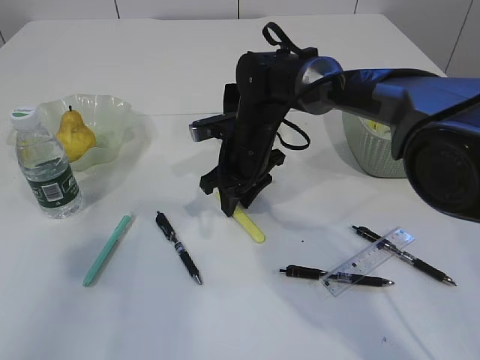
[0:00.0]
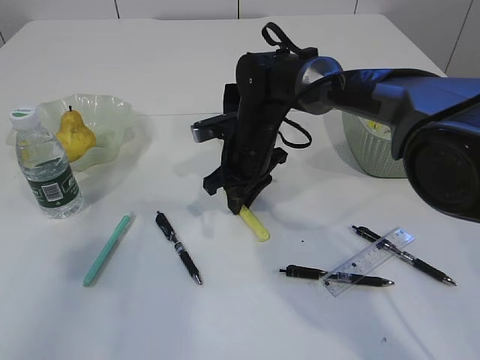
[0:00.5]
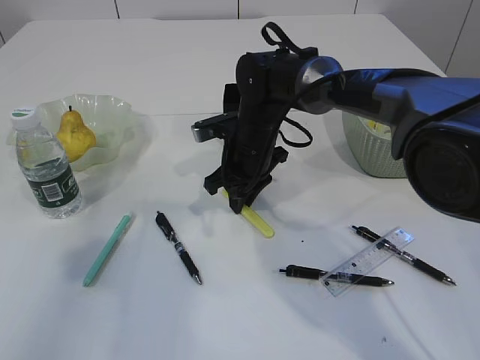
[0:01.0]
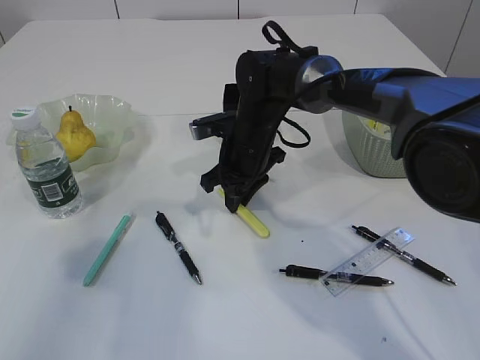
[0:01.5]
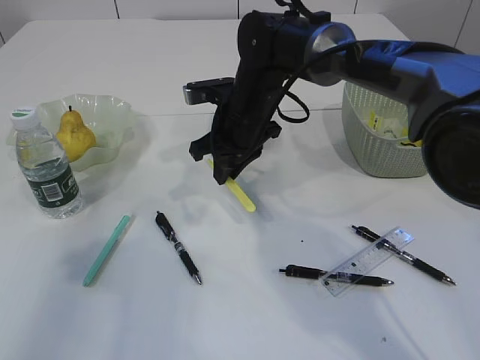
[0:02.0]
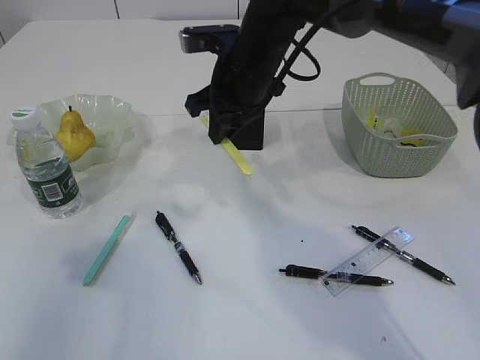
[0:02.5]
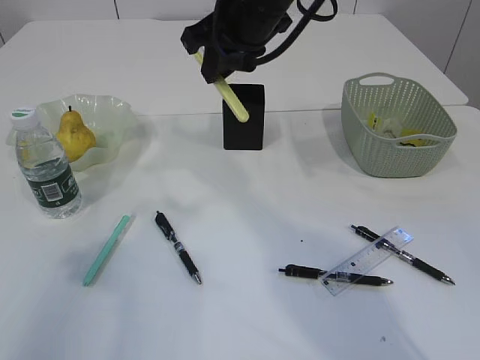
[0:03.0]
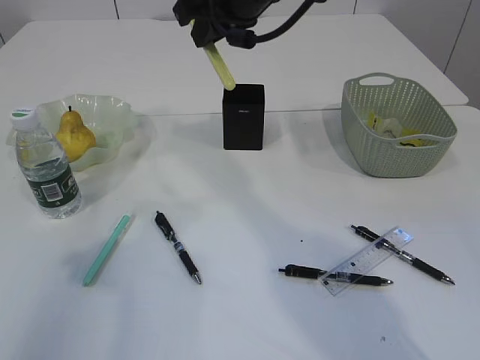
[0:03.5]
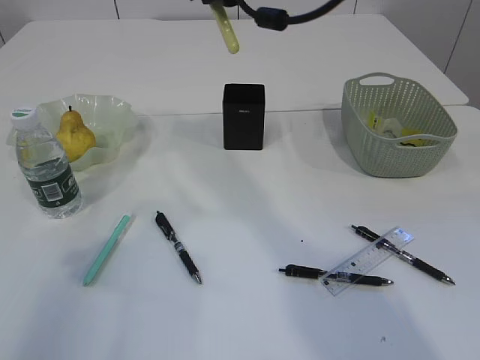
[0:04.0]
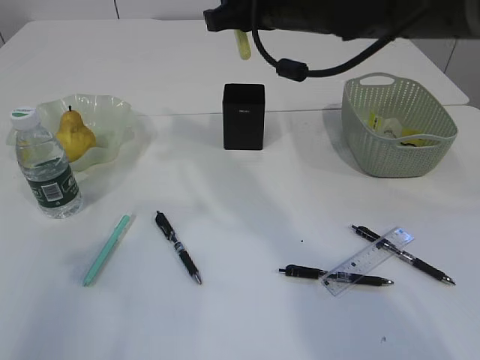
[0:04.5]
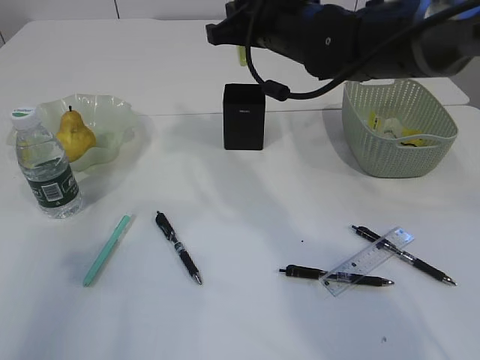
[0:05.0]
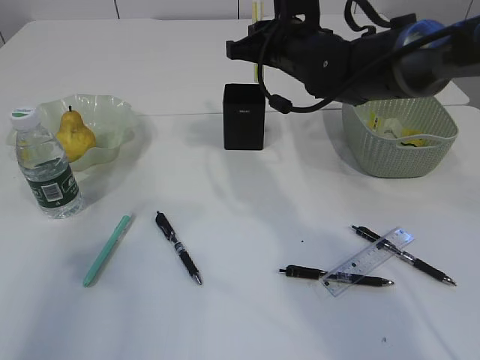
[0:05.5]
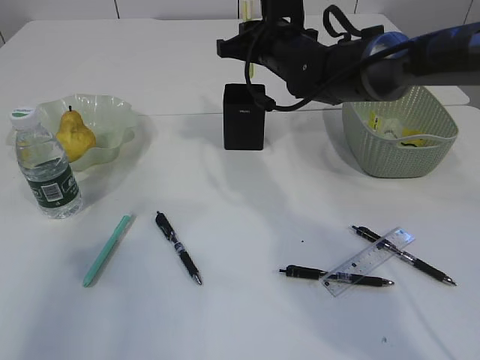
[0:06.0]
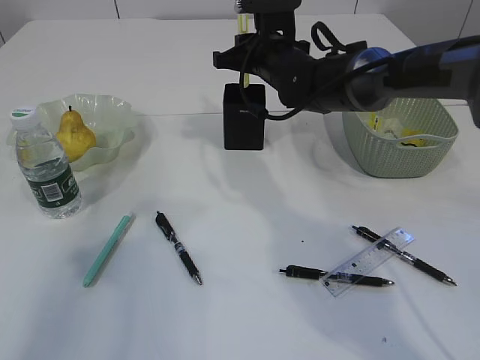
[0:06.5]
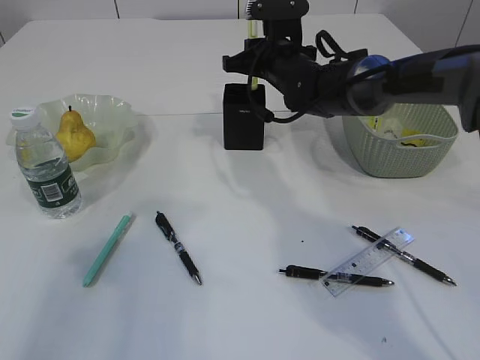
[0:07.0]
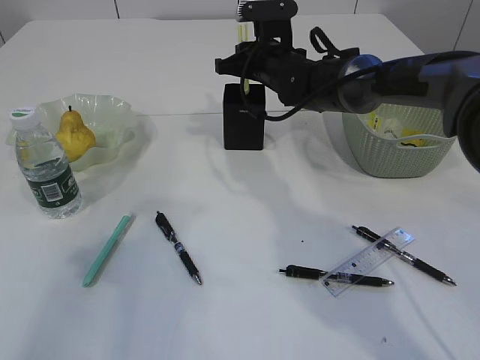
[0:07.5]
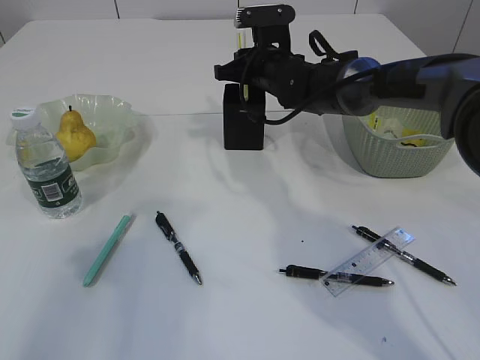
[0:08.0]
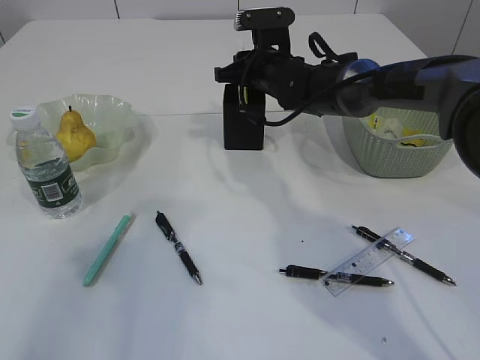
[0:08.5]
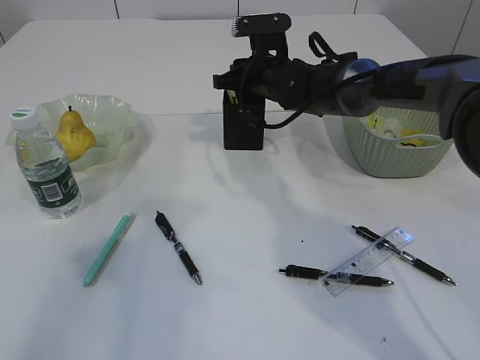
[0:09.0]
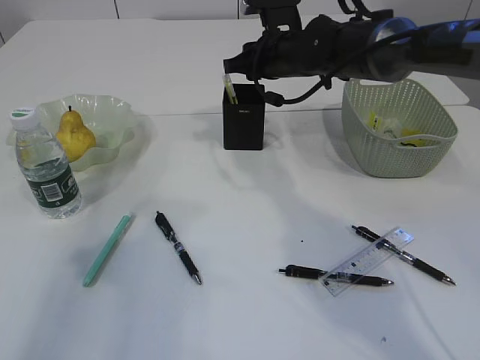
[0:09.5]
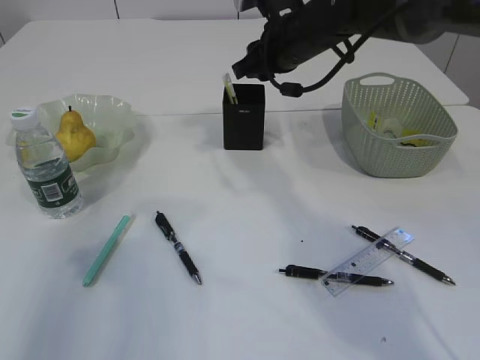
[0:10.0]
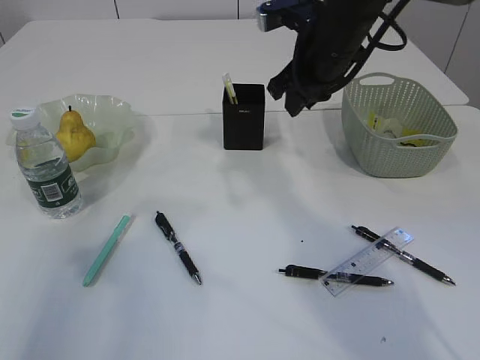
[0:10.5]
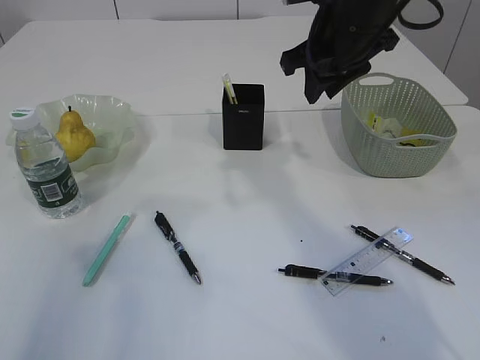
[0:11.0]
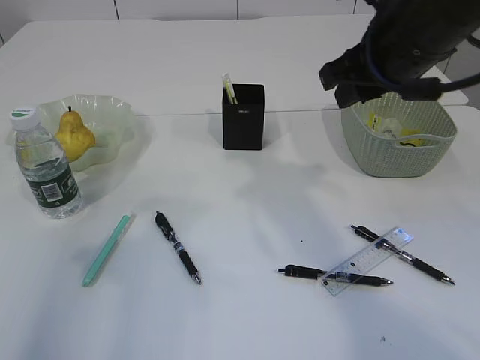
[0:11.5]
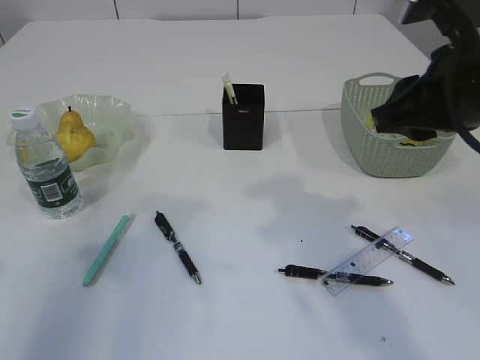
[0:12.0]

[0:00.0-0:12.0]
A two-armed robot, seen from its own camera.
Step, 0:02.0 to 0:09.0: place the yellow knife into the pen holder.
0:00.0 to 0:02.0: The right gripper closes its fingers.
0:02.0 to 0:04.0: The right gripper moves upward, roughly 20 cm.
0:04.0 to 0:06.0: The right gripper shifts approximately 15 cm downward and forward.
0:06.0 to 0:08.0: The right gripper changes place by about 5 cm.
0:08.0 to 0:10.0: The right gripper shifts roughly 5 cm upward.
0:10.0 to 0:12.0: The right gripper moves backward and to the right, roughly 25 cm.

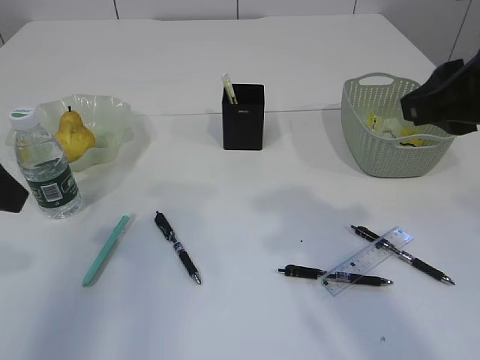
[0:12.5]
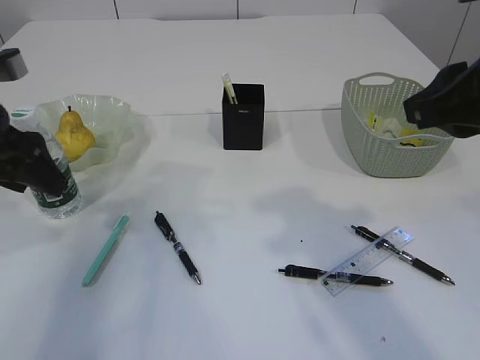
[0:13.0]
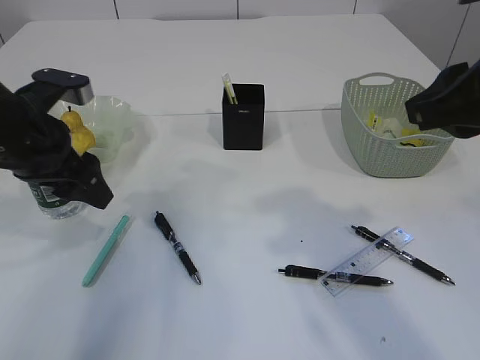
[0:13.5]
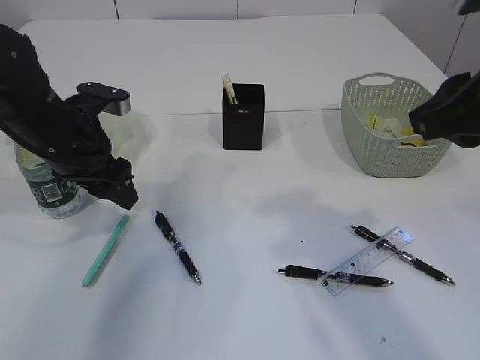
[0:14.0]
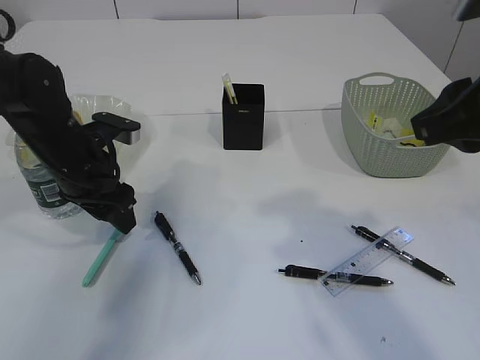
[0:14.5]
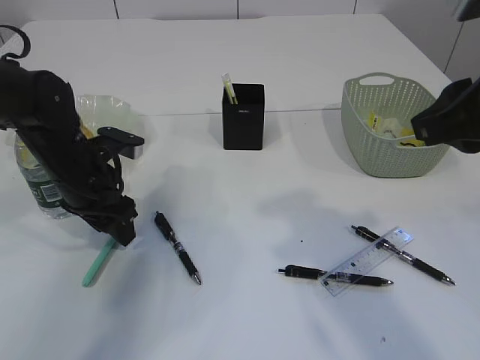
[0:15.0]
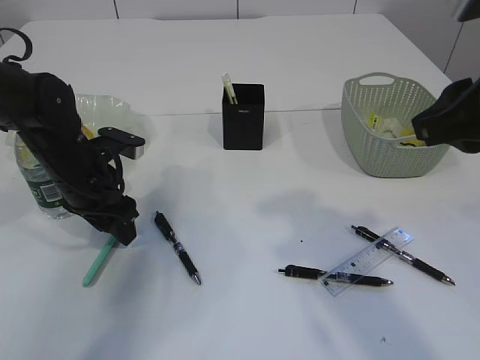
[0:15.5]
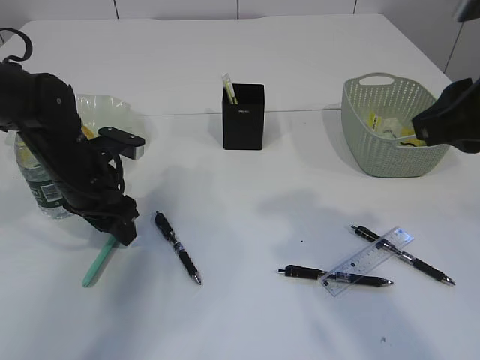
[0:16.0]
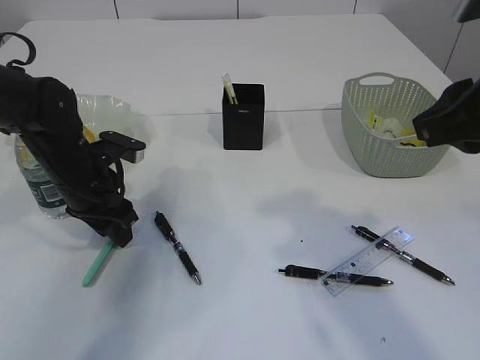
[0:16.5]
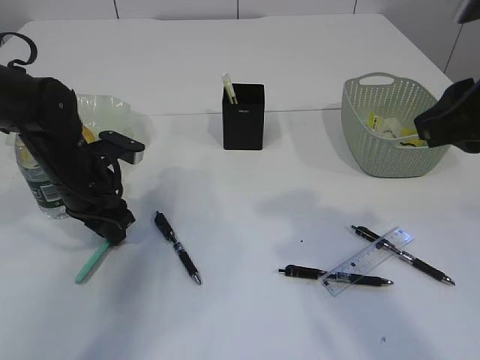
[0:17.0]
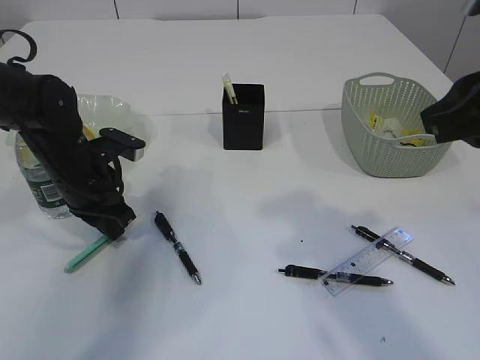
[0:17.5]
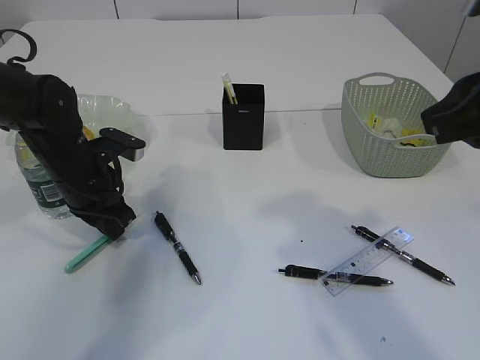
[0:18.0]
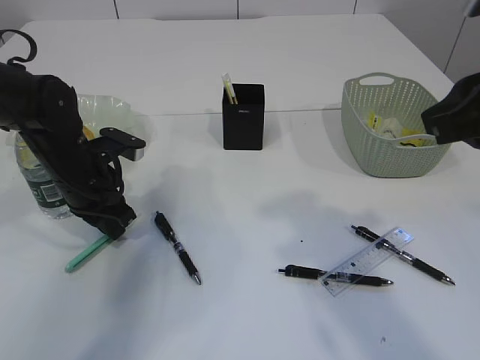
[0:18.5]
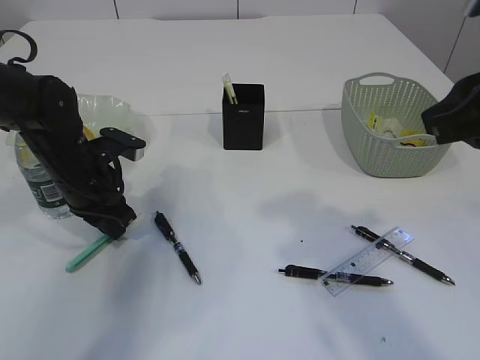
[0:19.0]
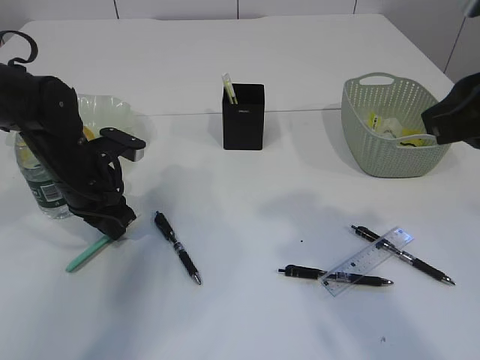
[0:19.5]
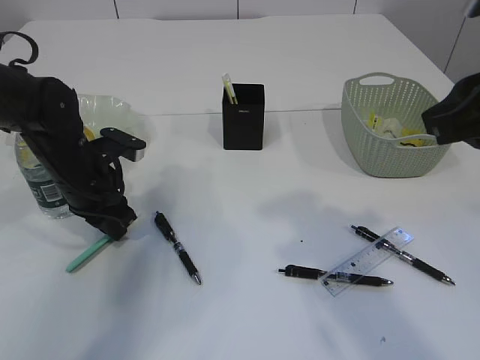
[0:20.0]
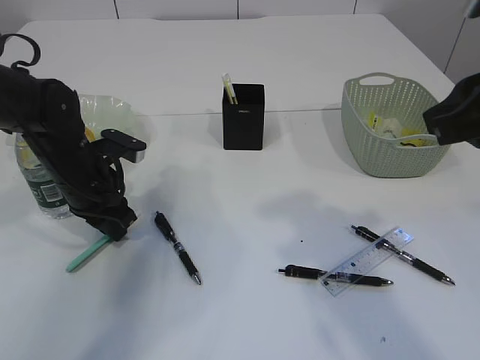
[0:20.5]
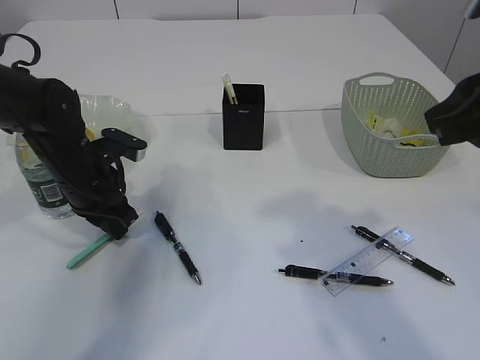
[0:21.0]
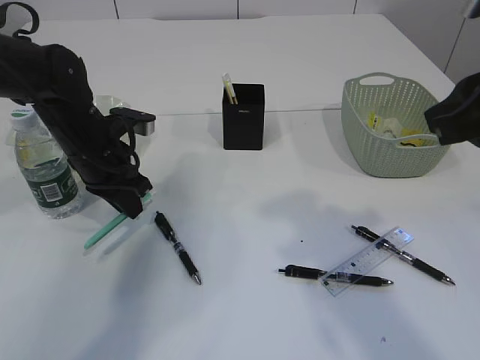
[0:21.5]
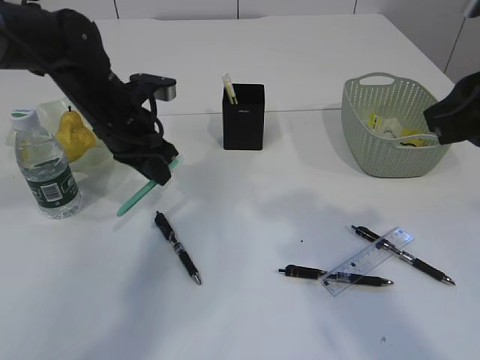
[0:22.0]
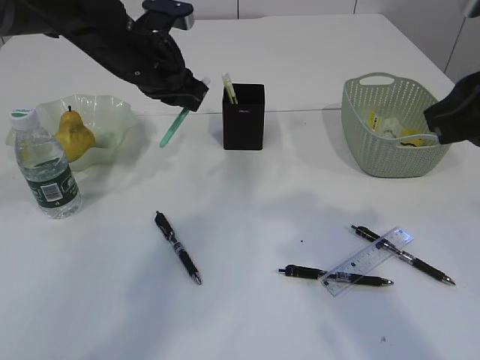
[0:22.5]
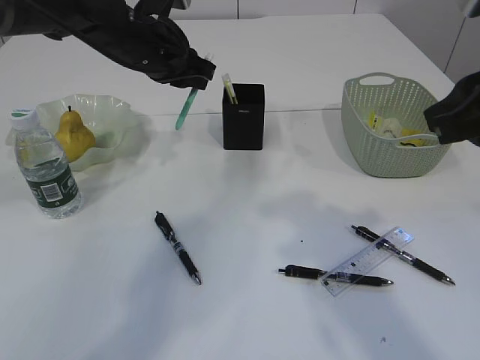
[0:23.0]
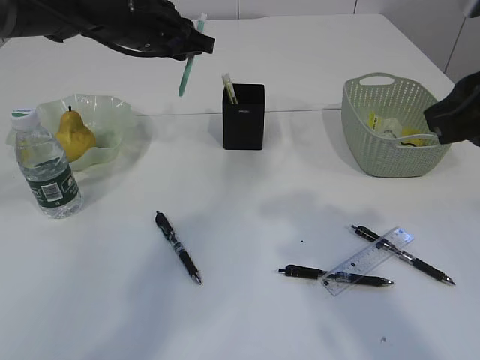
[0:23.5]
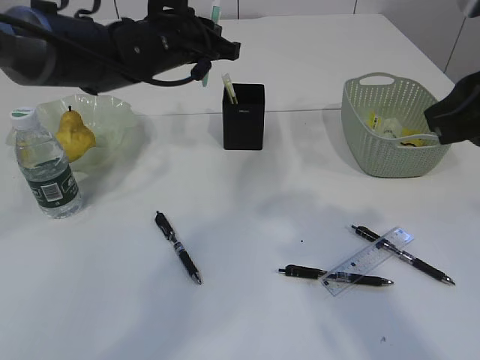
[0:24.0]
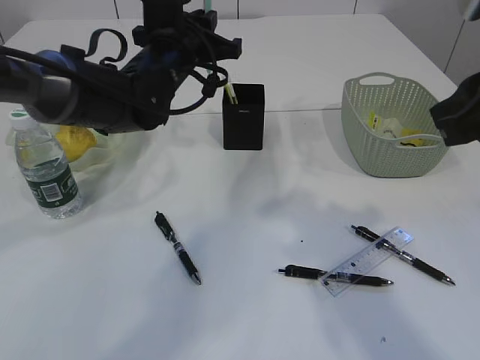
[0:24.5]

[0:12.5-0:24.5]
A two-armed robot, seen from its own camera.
Step, 0:12.5 to 0:21.0: pick up the blue knife.
0:12.5 to 0:14.5: The left gripper shifts roughly 20 cm downward, forward and to the right.
0:14.5 to 0:16.5: The grippers stay close to where they were, moving slightly.
0:16.5 to 0:18.5: The left gripper closes up.
0:18.5 to 0:20.5: Both grippers stay put.
0:20.5 to 0:22.5: The left gripper goes some 15 cm upward, to the right and forward.

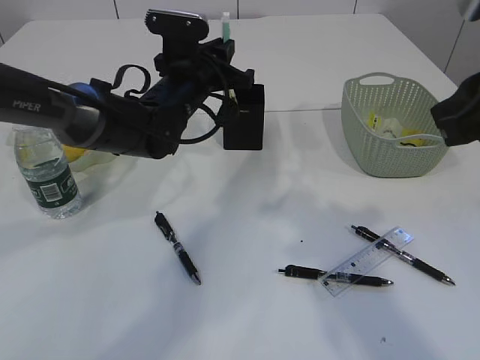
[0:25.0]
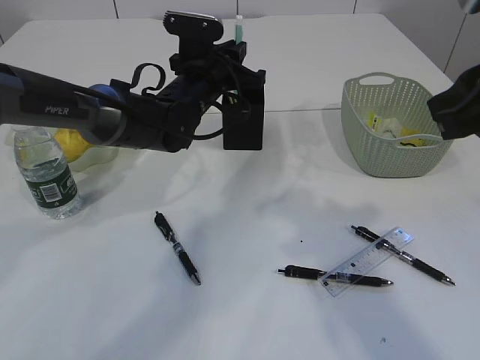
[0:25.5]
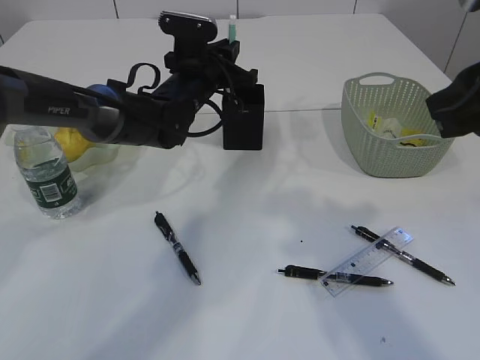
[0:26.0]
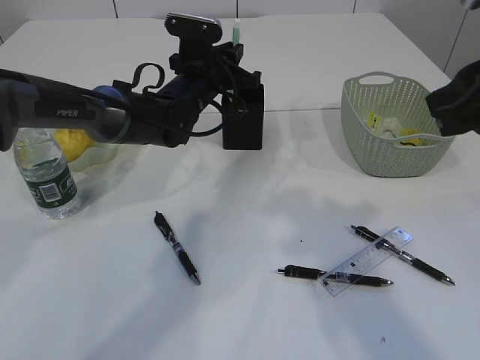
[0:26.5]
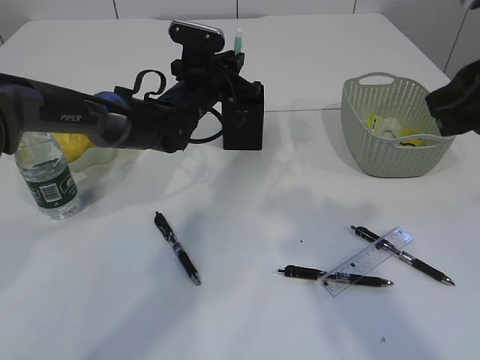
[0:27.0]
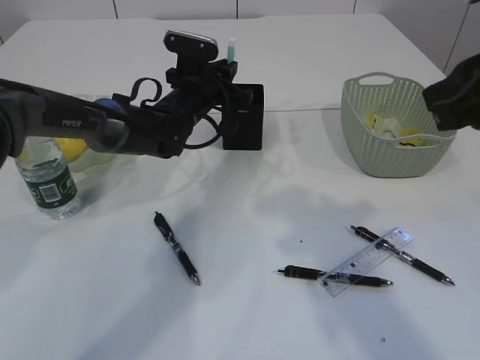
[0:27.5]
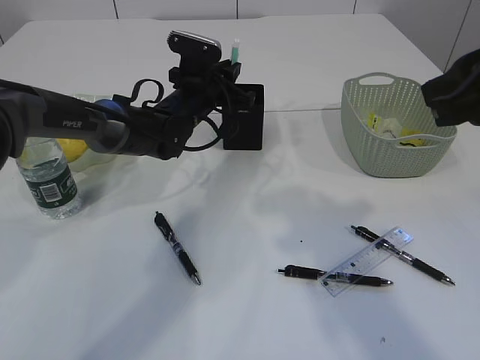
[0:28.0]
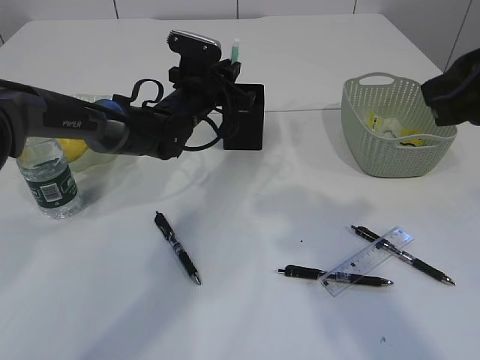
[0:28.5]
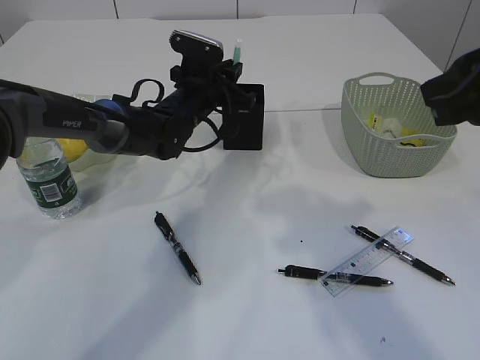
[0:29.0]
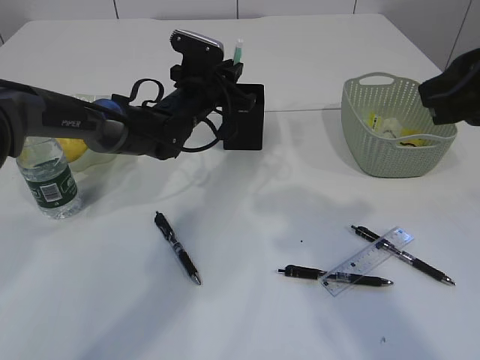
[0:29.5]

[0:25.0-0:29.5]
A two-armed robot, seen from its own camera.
0:25.0 to 0:27.0: The left gripper ends up roughly 5 cm from where it was.
0:27.0 to 0:29.5: The grippers stay close to where they were, moving slightly.
